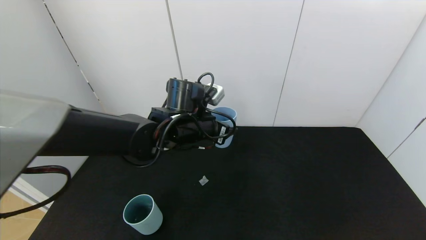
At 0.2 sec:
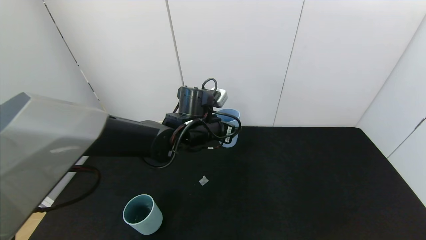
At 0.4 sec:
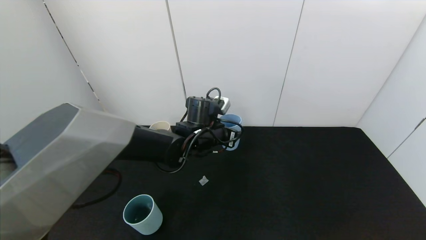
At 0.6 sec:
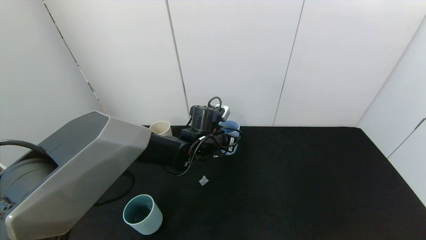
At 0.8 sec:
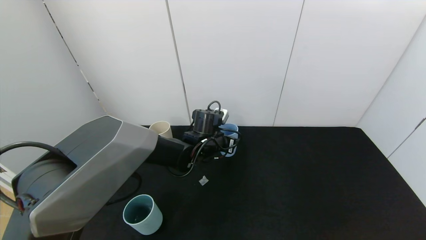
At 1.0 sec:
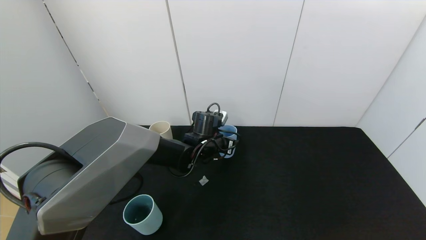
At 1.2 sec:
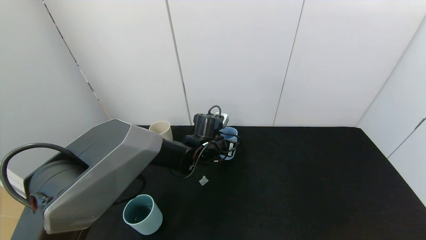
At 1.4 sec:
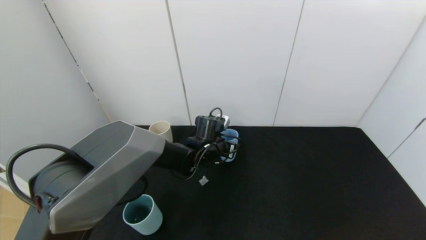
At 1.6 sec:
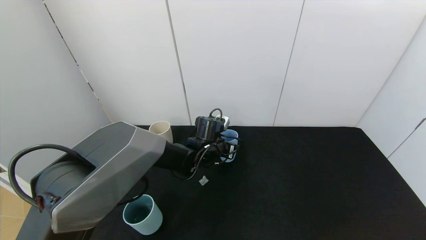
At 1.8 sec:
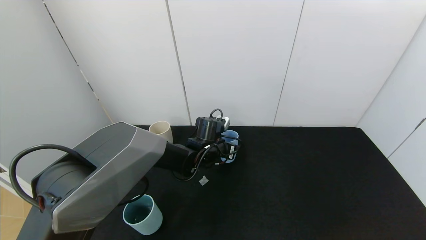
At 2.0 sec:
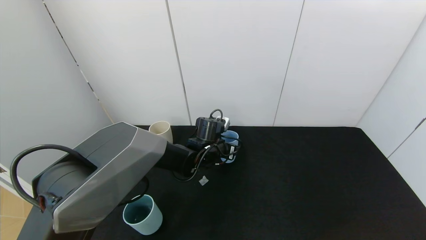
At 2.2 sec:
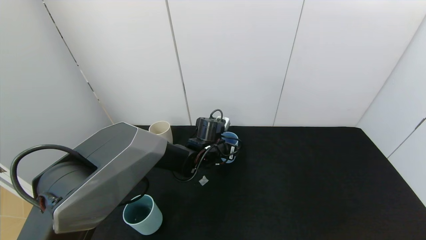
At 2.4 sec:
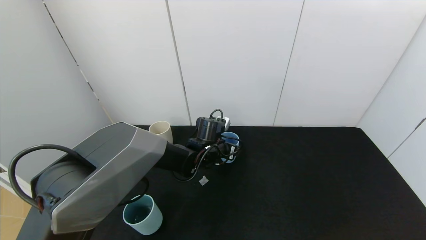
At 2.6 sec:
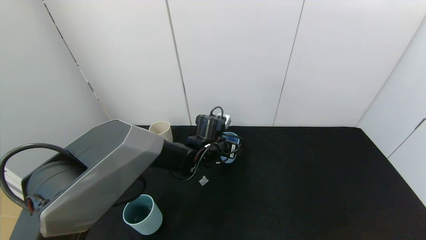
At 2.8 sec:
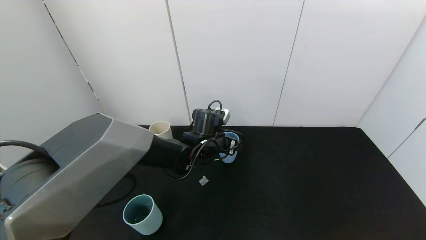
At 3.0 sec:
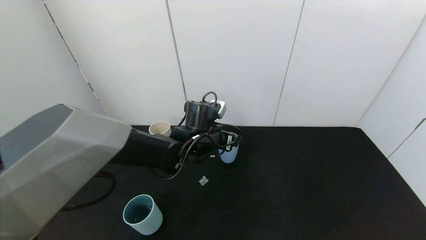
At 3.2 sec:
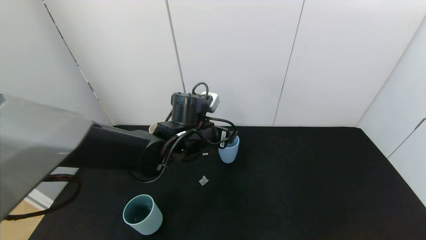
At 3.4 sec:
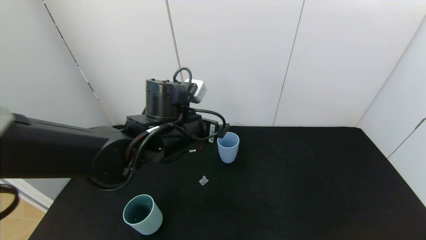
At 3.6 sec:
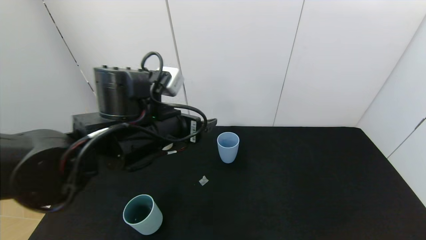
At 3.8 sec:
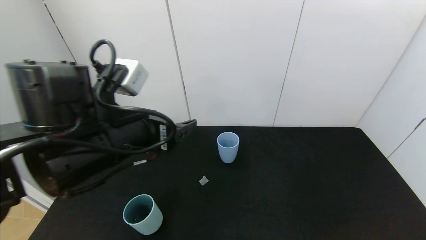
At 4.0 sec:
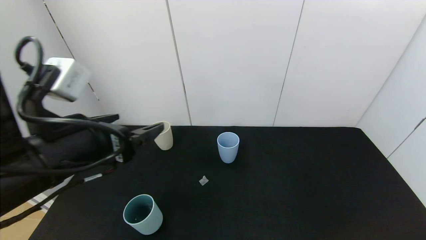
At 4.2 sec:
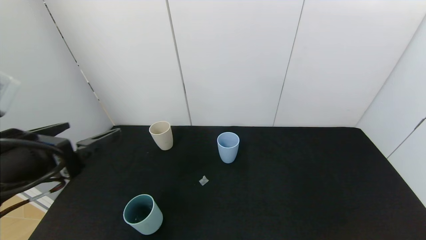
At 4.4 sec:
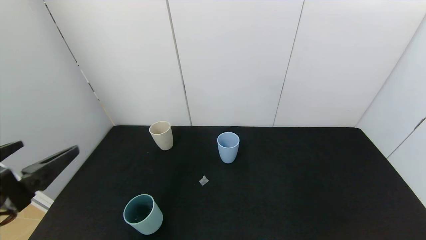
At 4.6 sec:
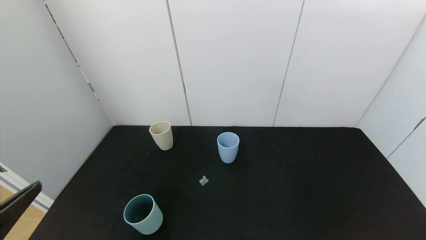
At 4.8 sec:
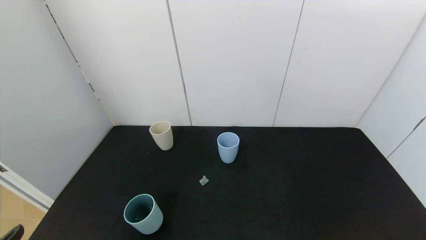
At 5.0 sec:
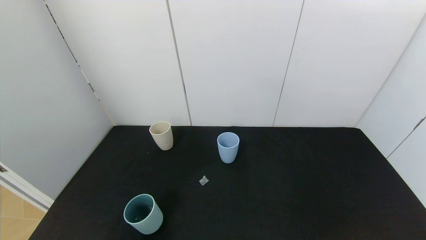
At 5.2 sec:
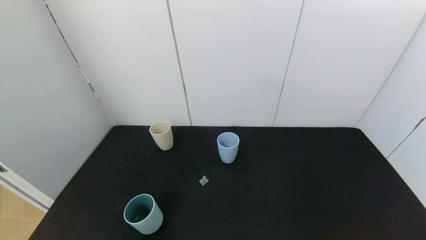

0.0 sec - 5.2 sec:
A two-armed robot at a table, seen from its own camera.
Task of the whole recording: use the gripper to pour the water into the other two cups on black table.
Step, 0.0 sec - 3.4 sec: Place the blue cup with the left gripper.
0.0 sec - 1.8 sec: The left gripper is displaced downward and forward by about 15 cm.
1.8 sec - 3.4 sec: The left gripper heads upward and backward, covering about 15 cm, and opens.
3.4 sec - 5.2 sec: The left gripper is displaced backward and to the left by roughly 40 cm.

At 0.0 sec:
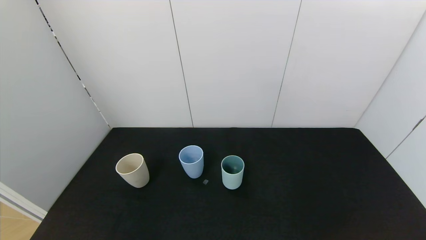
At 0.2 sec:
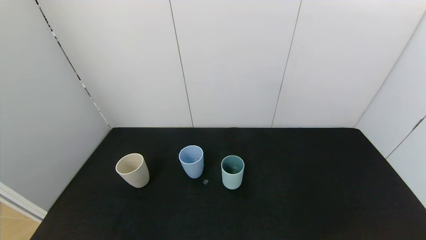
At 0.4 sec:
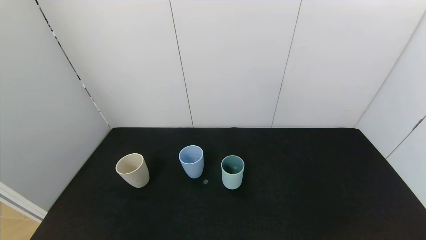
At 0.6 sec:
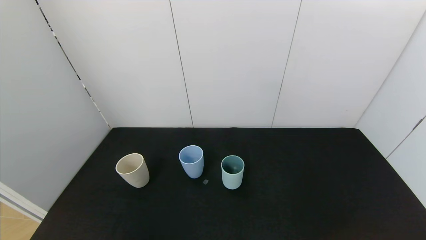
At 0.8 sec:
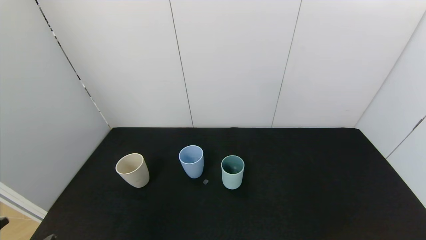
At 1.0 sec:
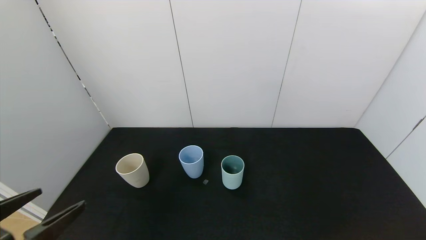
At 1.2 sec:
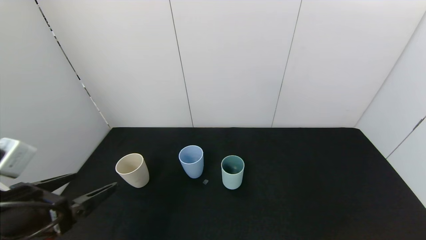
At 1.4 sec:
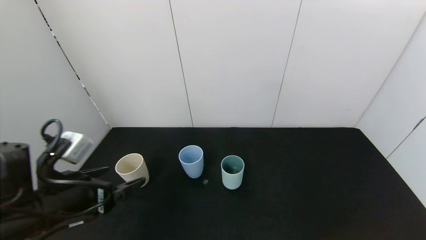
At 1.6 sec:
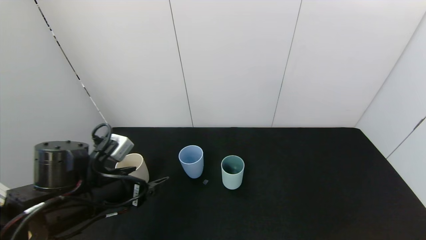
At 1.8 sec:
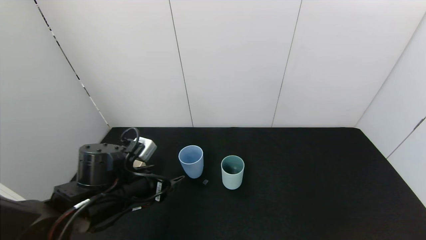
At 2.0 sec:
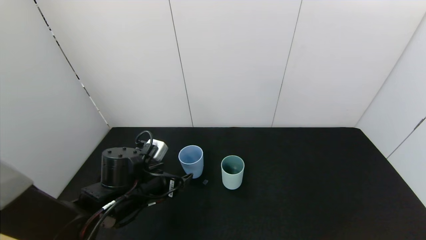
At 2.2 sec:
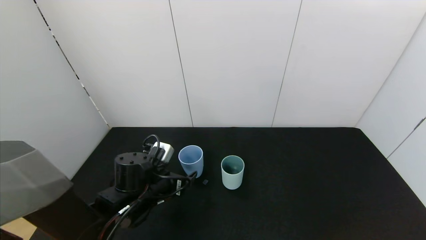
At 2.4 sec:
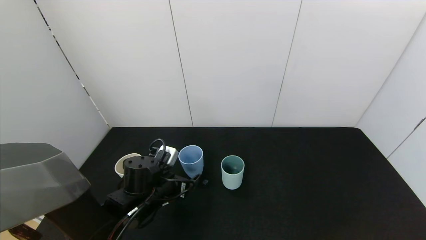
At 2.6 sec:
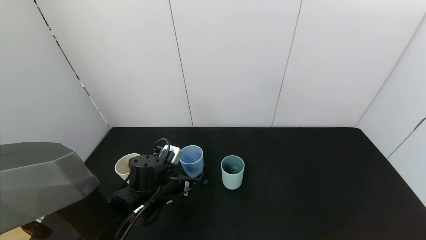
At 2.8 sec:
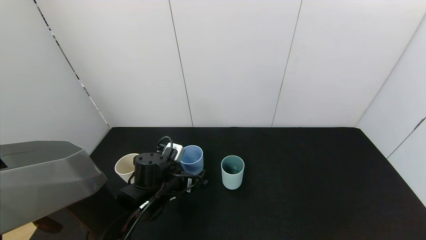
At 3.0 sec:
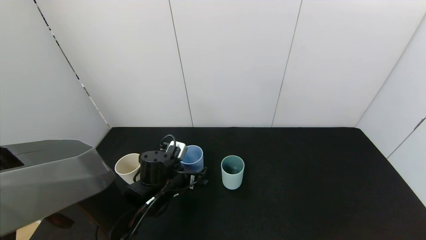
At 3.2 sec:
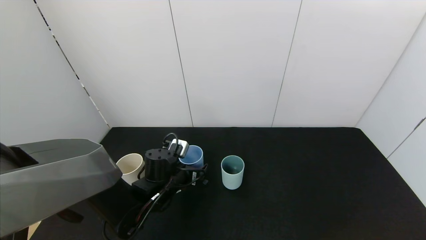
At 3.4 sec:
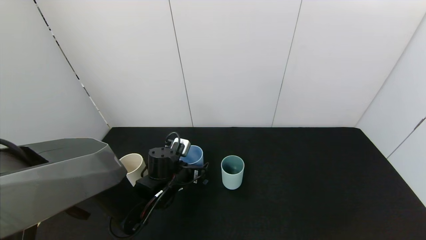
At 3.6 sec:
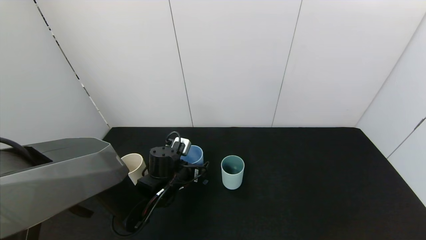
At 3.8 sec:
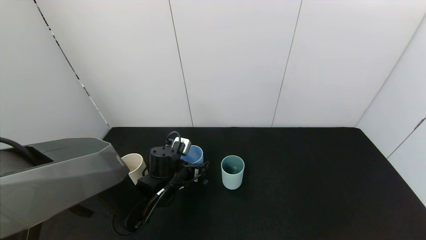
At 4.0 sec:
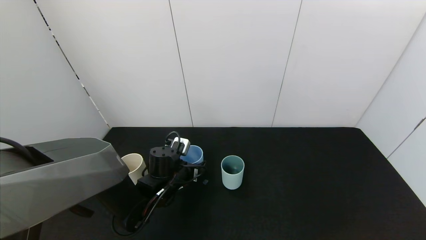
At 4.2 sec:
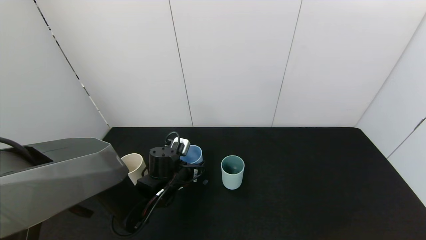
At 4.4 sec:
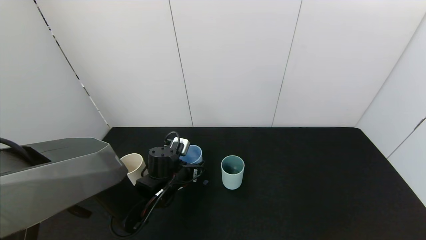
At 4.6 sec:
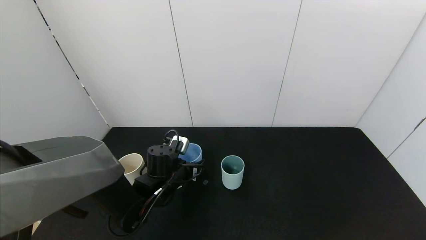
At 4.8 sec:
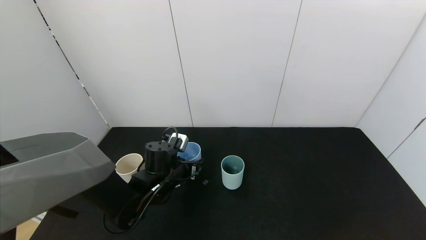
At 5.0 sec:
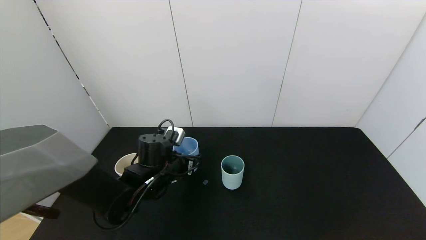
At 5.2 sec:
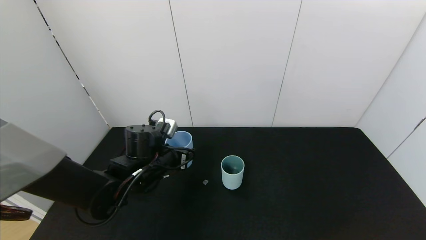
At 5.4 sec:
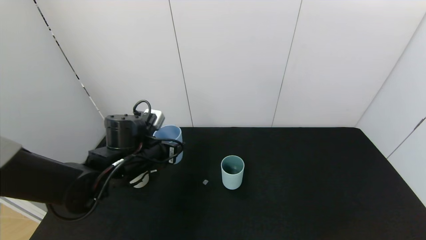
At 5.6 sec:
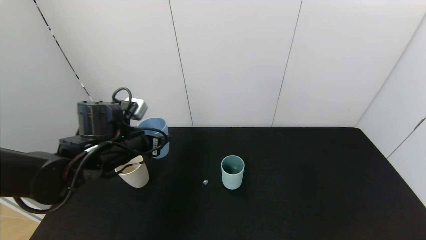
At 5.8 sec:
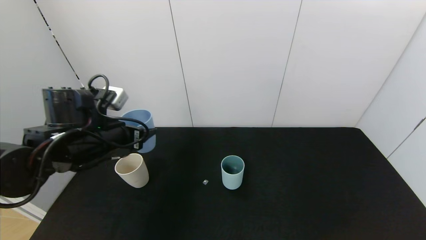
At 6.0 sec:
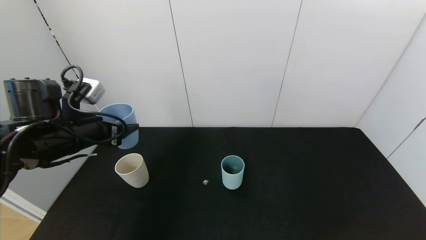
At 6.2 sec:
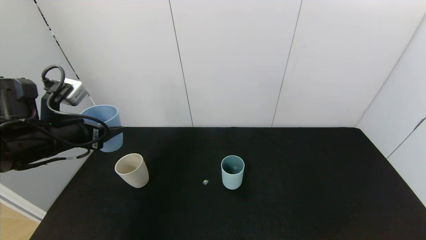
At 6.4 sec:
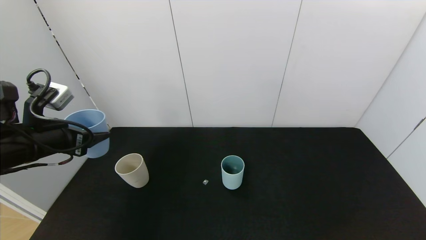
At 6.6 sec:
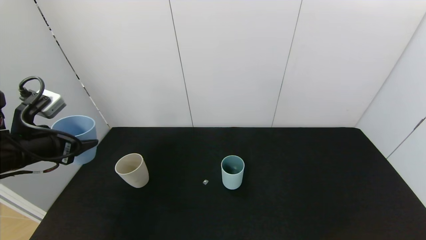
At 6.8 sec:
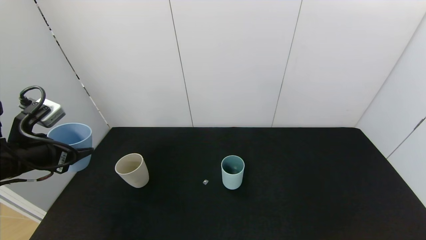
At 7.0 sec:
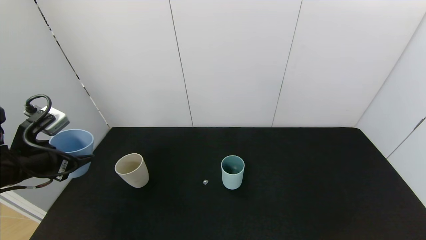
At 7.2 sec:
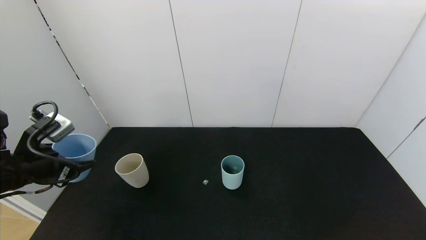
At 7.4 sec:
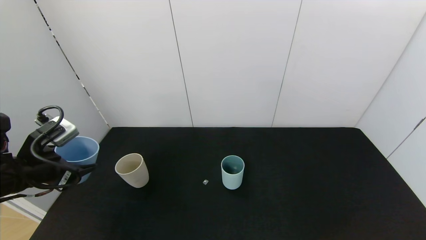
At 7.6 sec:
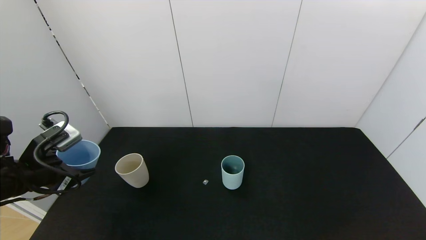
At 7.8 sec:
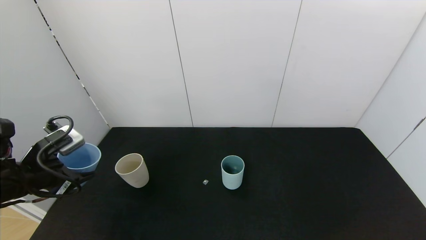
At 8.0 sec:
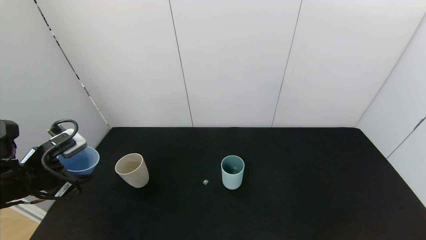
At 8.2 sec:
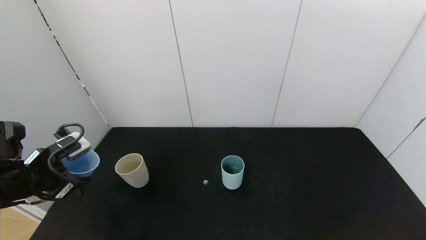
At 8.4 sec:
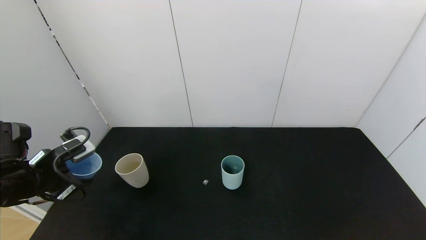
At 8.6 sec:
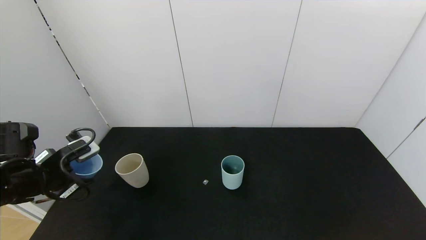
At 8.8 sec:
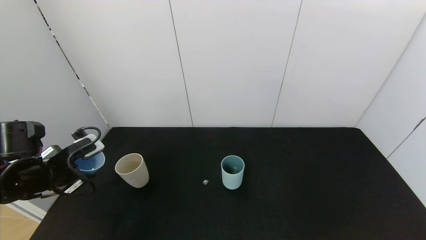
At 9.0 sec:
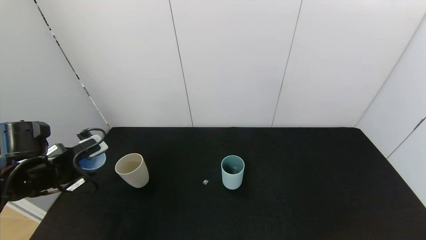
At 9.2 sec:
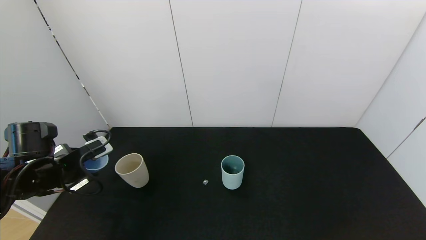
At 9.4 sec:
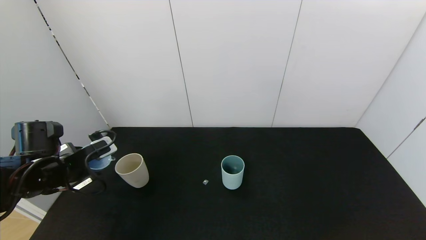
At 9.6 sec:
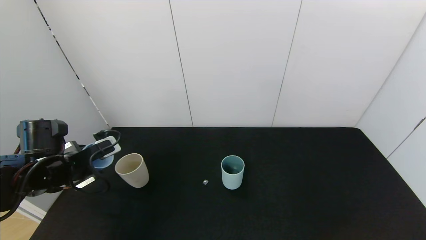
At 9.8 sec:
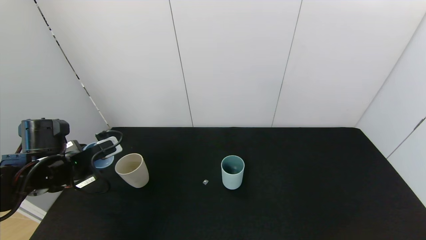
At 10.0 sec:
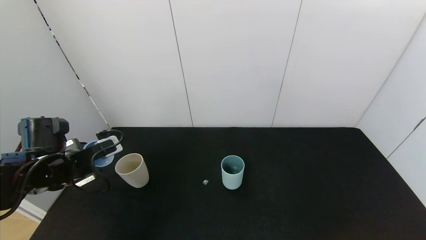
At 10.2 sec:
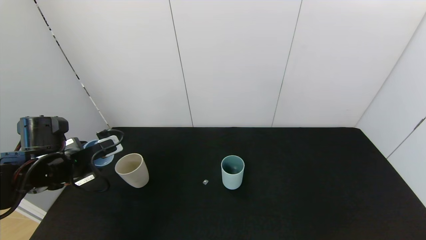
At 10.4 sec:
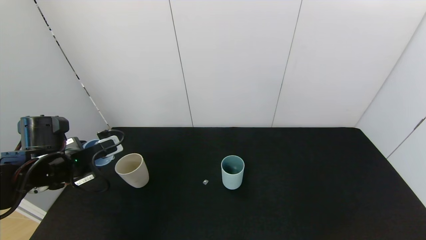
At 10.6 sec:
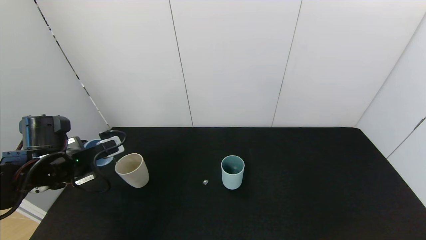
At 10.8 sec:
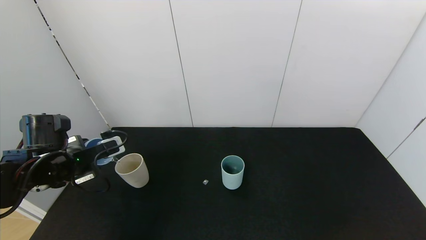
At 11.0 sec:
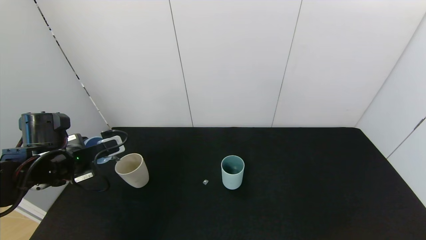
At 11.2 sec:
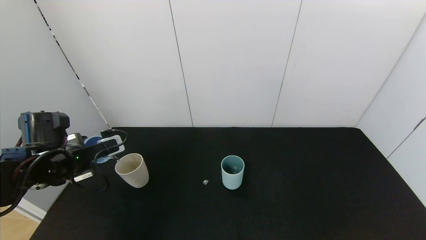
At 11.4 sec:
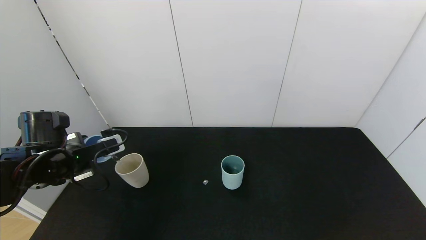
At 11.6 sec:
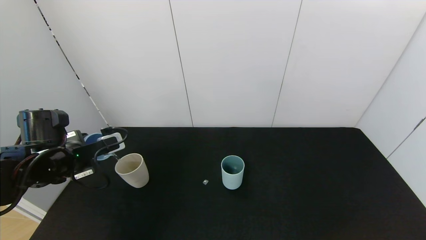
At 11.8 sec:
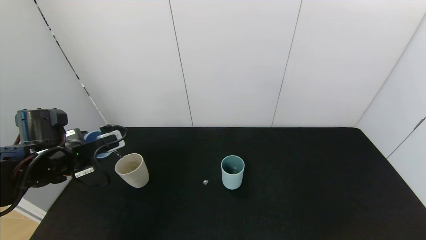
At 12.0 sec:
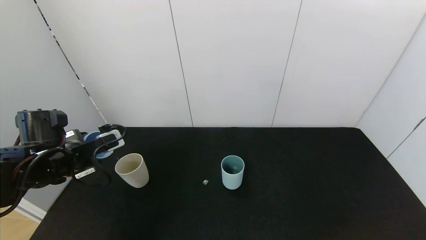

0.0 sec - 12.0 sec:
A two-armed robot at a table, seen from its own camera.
Task of the whole recording: use the gripper to pour the water into the other two cups on black table.
Step, 0.0 sec - 4.4 sec: Grasp the blue cup with the left gripper.
0.0 sec - 1.6 sec: The left gripper moves forward and to the right, approximately 20 cm.
1.6 sec - 3.0 sec: The left gripper moves forward, downward and to the right, about 15 cm.
3.0 sec - 4.4 sec: The left gripper closes up.
4.4 sec - 6.0 sec: The left gripper travels upward and to the left by some 20 cm.
6.0 sec - 7.6 sec: The left gripper shifts about 10 cm to the left and backward.
7.6 sec - 9.0 sec: The left gripper shifts by roughly 5 cm.
9.0 sec - 12.0 sec: There are only small adjustments of the grippers.
